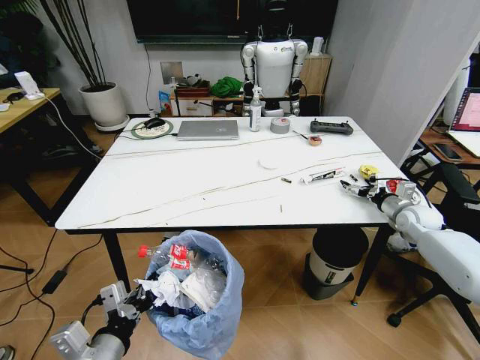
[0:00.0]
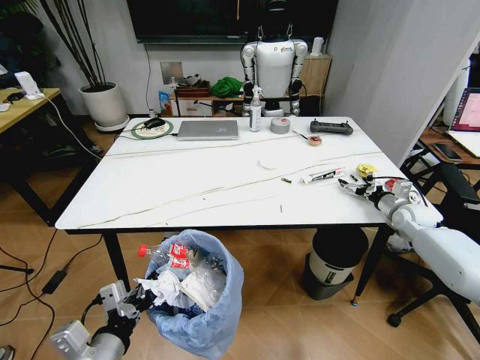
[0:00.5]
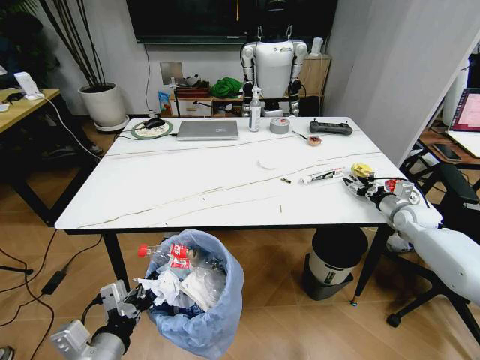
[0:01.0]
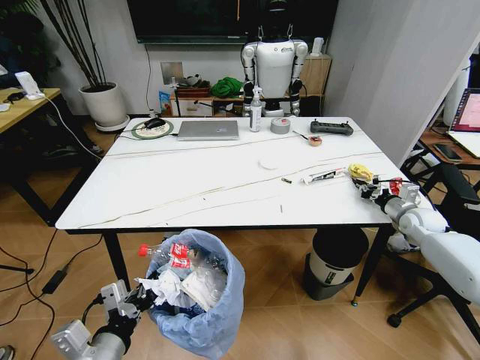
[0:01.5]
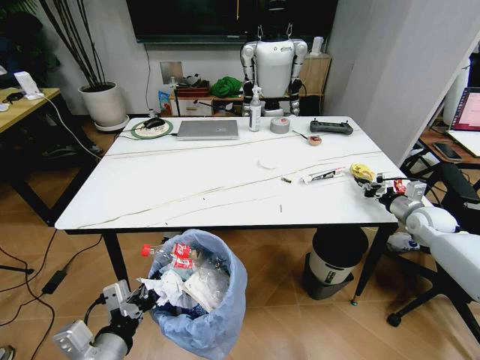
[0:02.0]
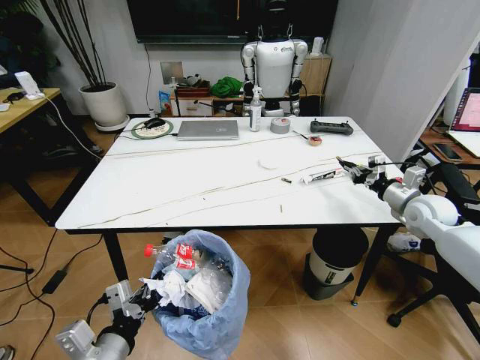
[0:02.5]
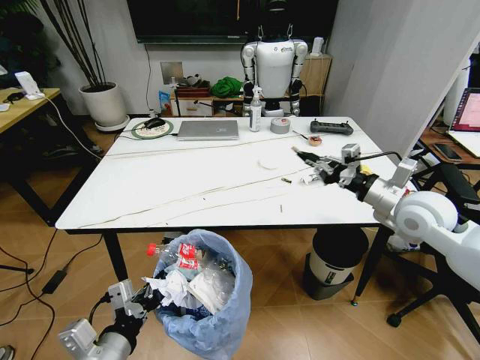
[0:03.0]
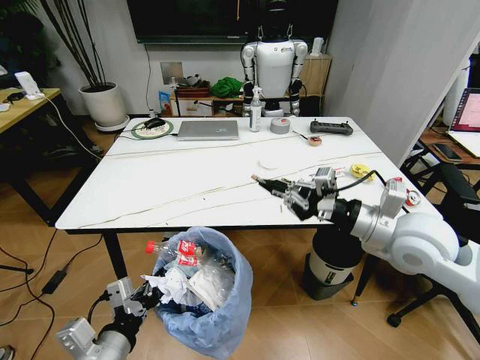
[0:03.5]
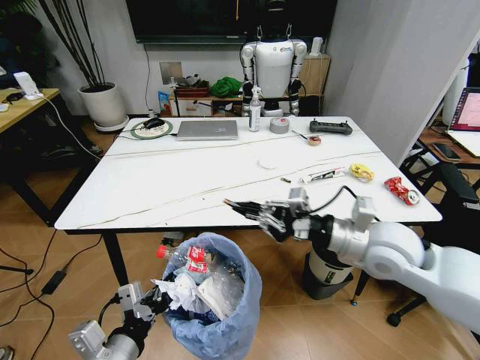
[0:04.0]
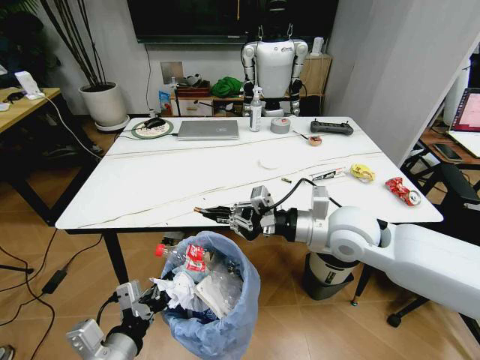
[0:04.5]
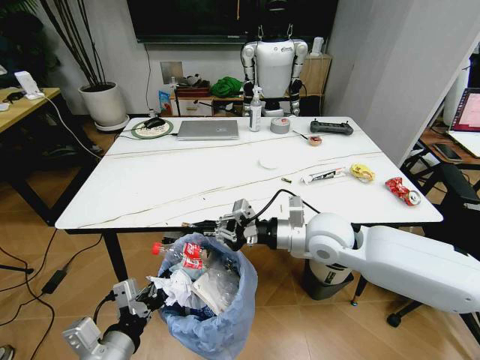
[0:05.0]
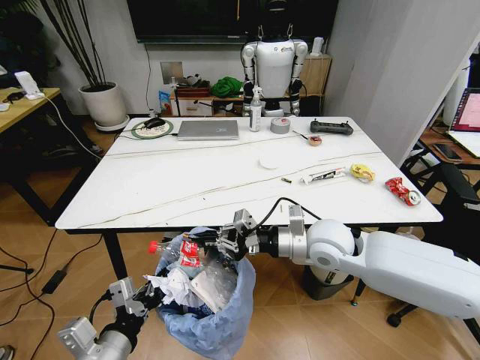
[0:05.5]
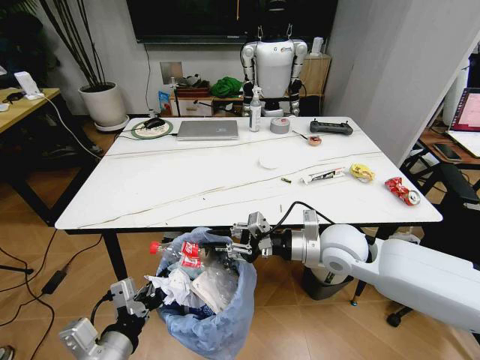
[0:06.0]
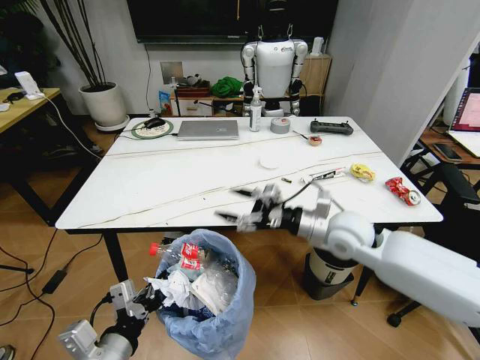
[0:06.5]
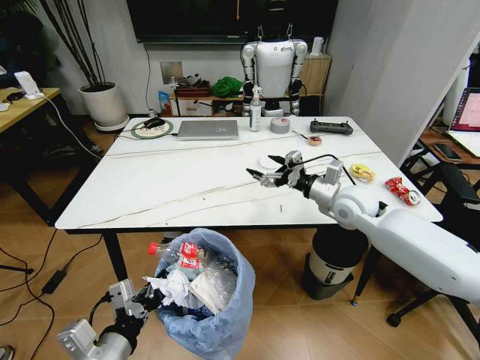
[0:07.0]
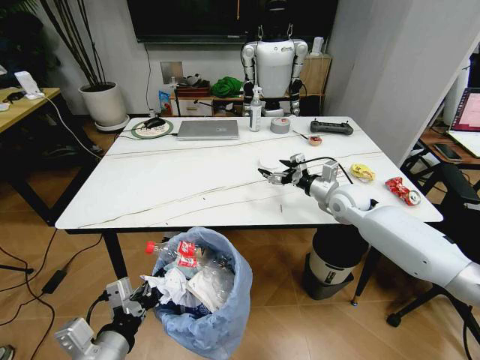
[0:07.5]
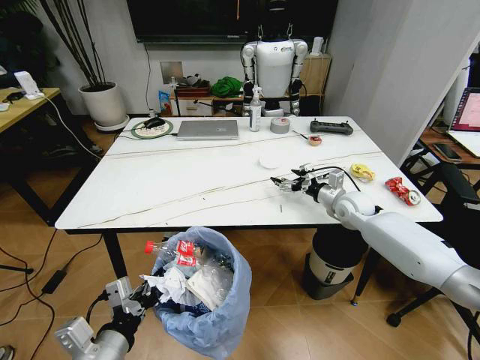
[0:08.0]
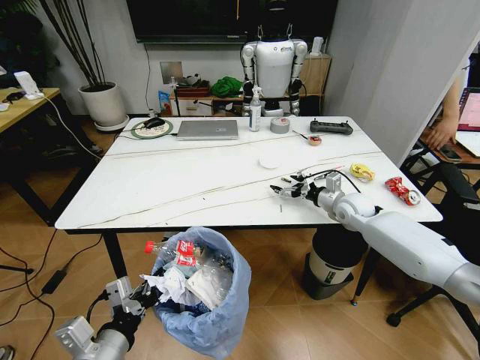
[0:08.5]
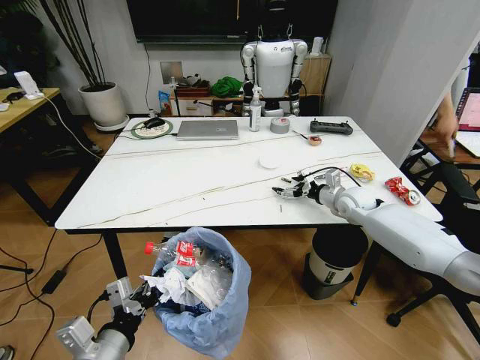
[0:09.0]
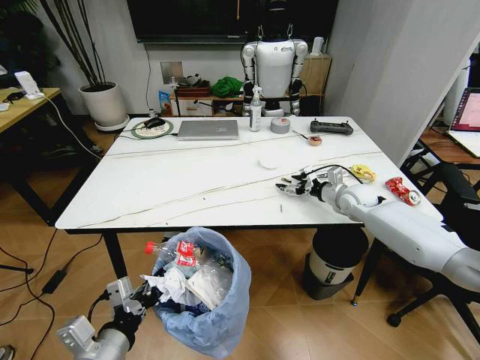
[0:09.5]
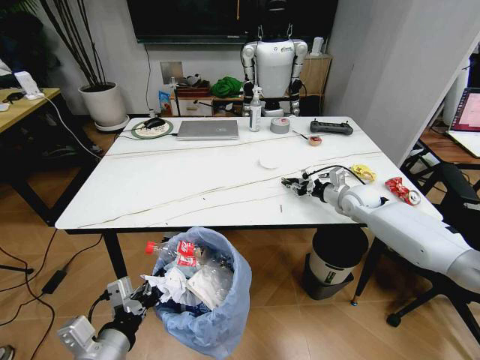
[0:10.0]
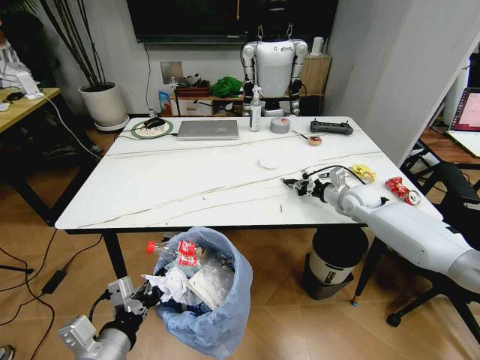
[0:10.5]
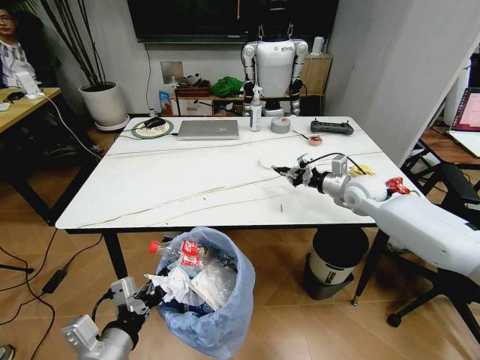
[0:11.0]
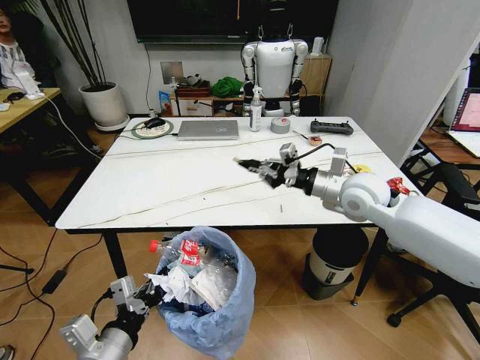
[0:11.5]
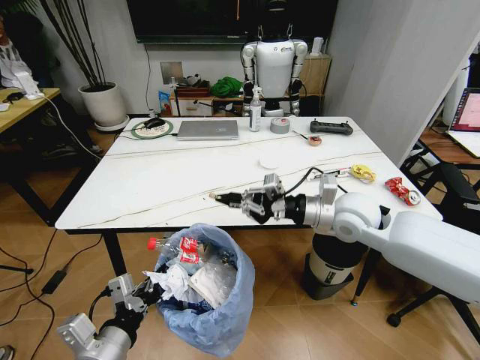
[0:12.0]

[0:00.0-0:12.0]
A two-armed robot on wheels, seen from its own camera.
Task of the whole recording: Pick up the trash bin and place the trash from the table into it.
0.0 to 2.0 s: The right gripper closes its fingers.
2.0 to 4.0 s: The right gripper goes about 35 cm to the left, backward and upward.
4.0 to 6.0 s: The right gripper is displaced downward by approximately 5 cm.
6.0 to 8.0 s: The right gripper goes roughly 20 cm forward and to the right, and opens.
8.0 to 10.0 s: The right gripper closes up.
10.0 to 12.0 s: The right gripper goes about 20 cm backward, to the left and upward.

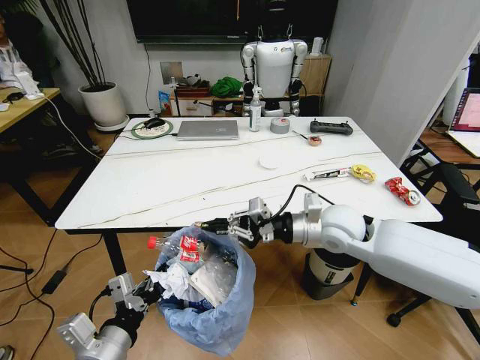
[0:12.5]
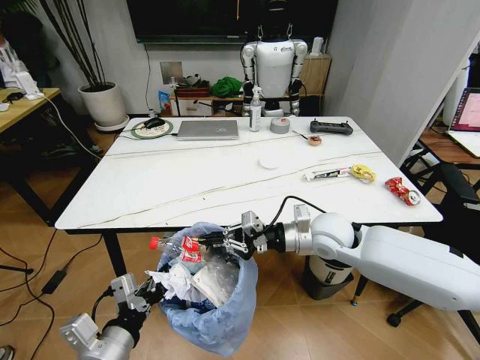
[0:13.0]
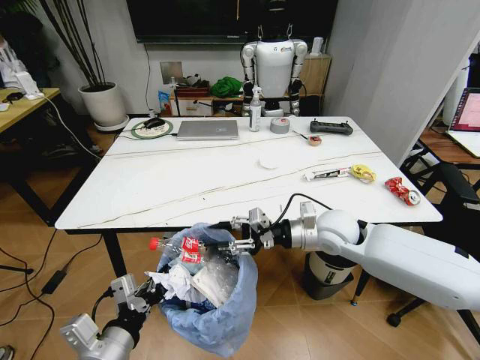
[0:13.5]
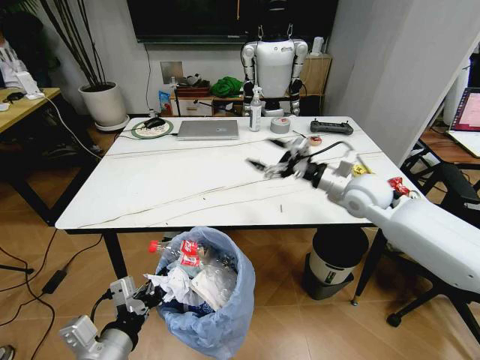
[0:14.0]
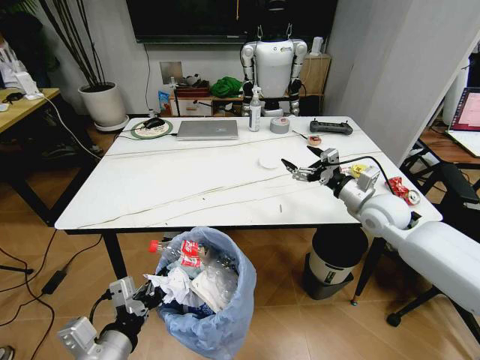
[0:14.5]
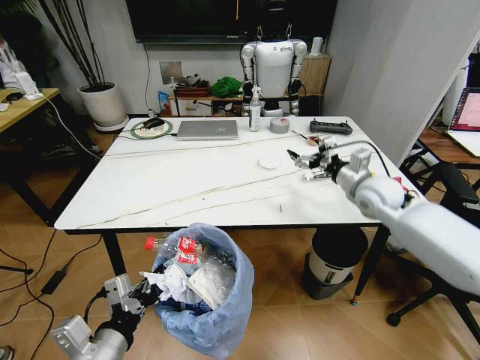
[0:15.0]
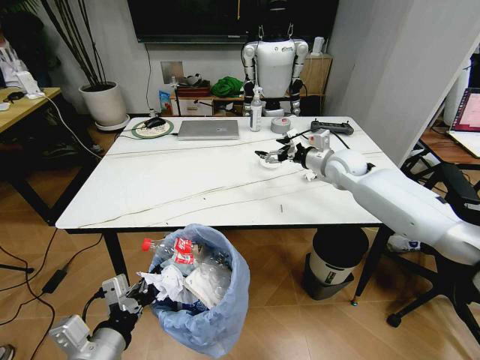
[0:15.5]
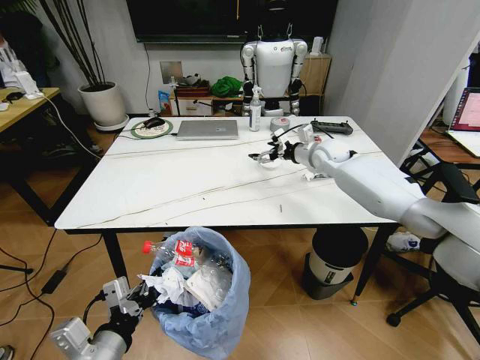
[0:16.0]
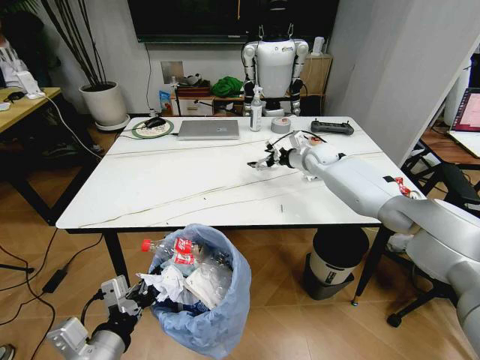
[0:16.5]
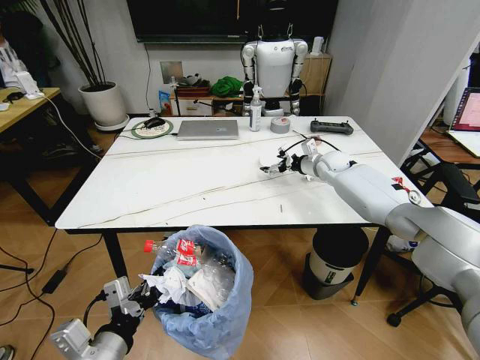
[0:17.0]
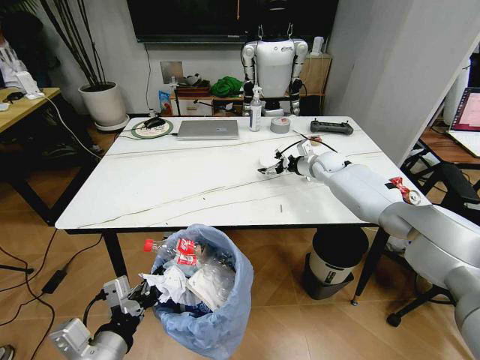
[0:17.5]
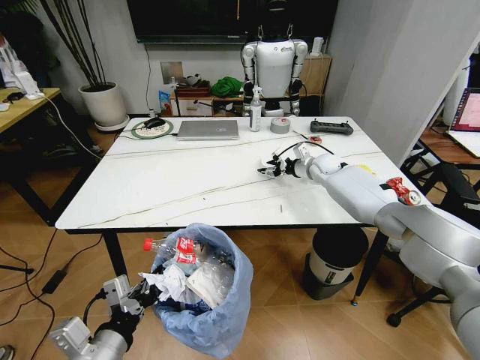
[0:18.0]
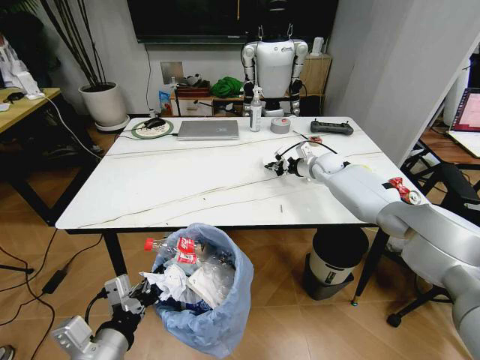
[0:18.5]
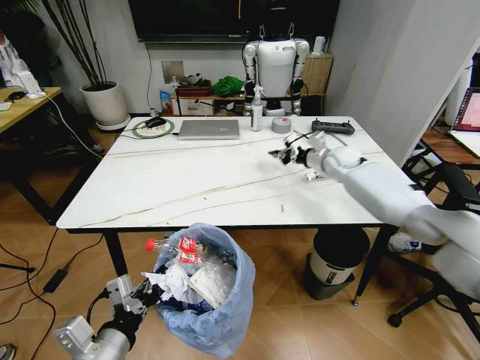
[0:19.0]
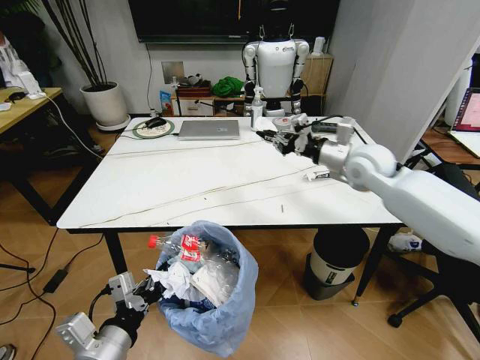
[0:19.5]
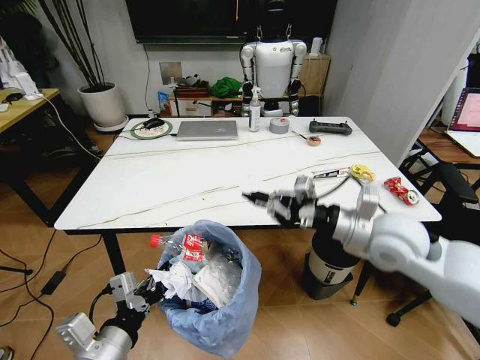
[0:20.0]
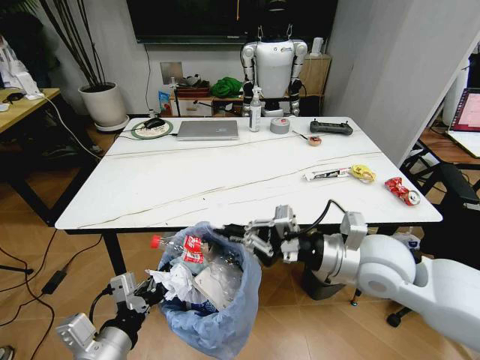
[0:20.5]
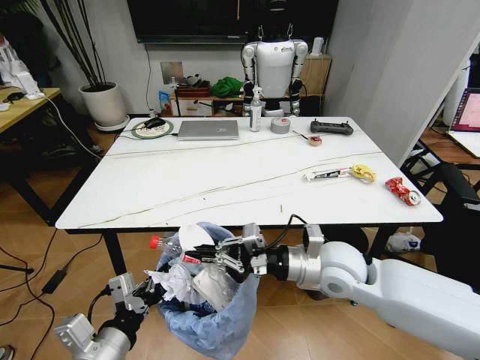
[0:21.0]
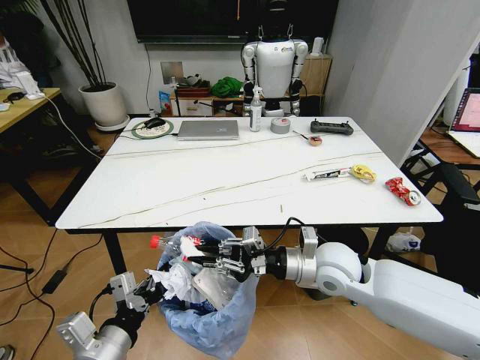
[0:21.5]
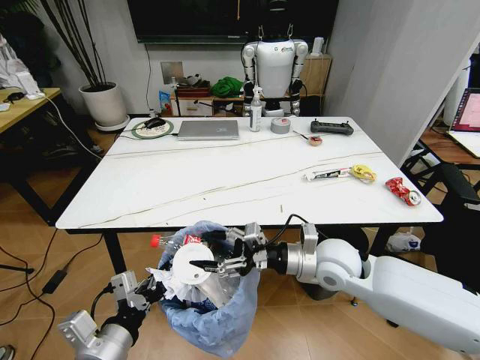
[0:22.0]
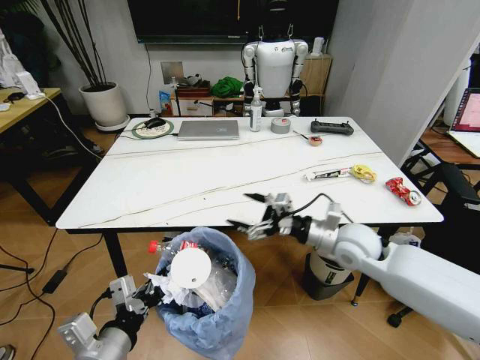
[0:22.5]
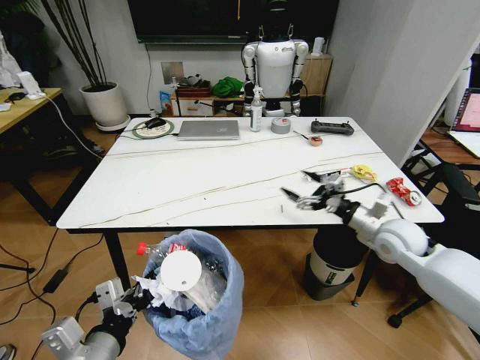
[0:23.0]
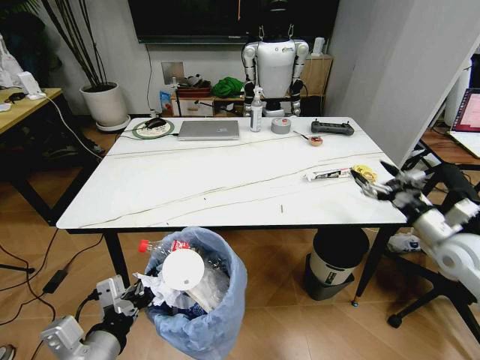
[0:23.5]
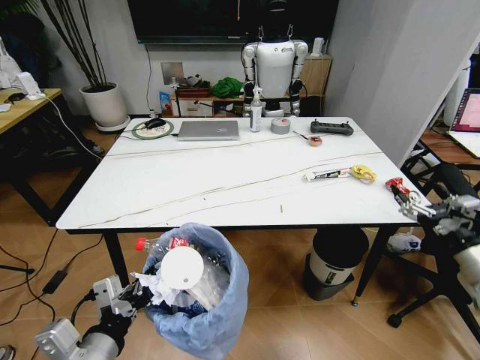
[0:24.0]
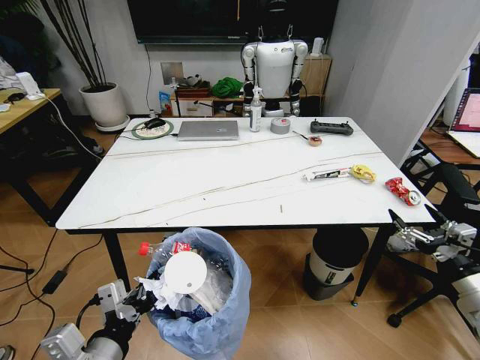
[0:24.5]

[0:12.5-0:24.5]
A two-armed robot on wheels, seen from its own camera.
Task of the whole recording: Pick up the trash bin and place the trash from the table into it.
12.5 to 14.5 s: The right gripper is displaced to the right by approximately 10 cm, and opens.
14.5 to 16.5 s: The right gripper goes about 20 cm forward.
16.5 to 18.5 s: The right gripper closes up.
18.5 to 20.5 s: The right gripper shifts some 35 cm backward.
20.5 to 22.5 s: The right gripper goes roughly 10 cm forward and downward, and opens up.
22.5 to 24.5 s: The right gripper goes about 30 cm to the right and backward.

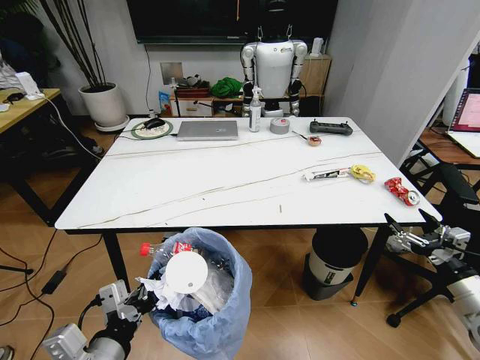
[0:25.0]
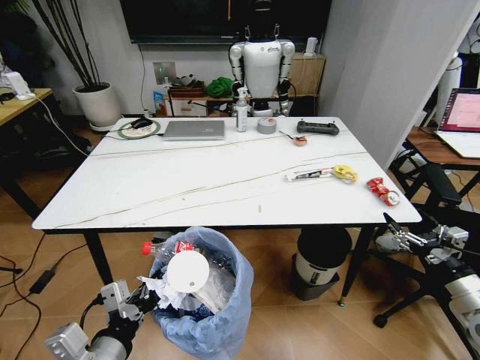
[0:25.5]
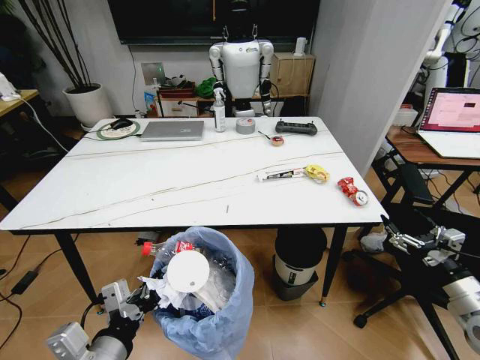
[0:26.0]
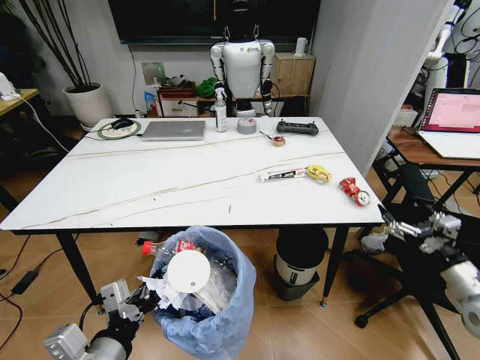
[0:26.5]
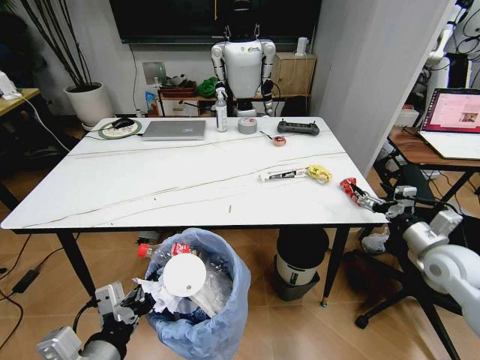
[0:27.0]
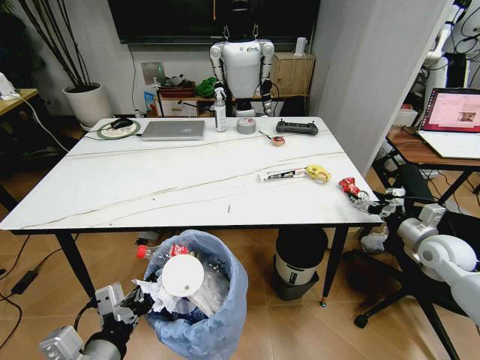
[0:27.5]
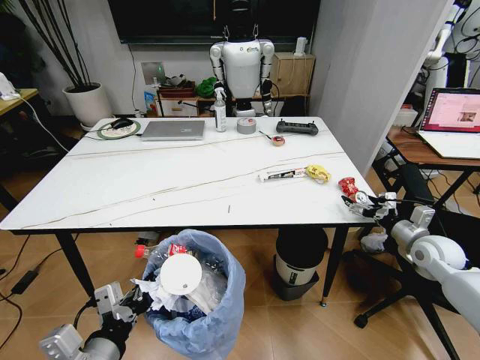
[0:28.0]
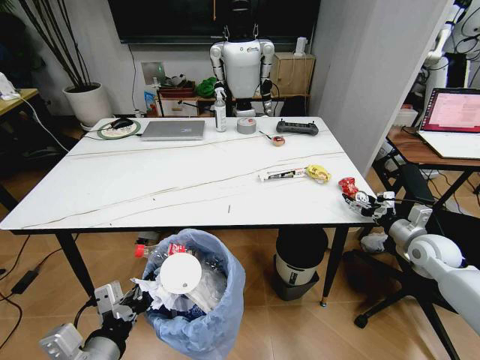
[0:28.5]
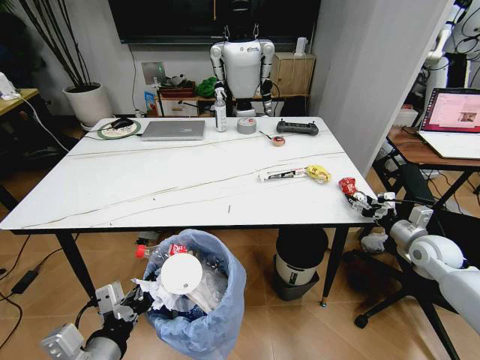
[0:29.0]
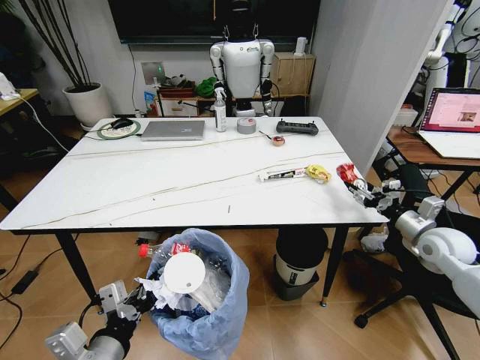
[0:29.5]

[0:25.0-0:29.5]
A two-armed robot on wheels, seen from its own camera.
Task of the whole recording: Pick up the trash bin and place the trash from the table into it.
25.0 to 27.0 s: The right gripper is displaced forward by about 10 cm.
27.0 to 29.5 s: The right gripper heads forward, covering approximately 5 cm, and closes its fingers.
